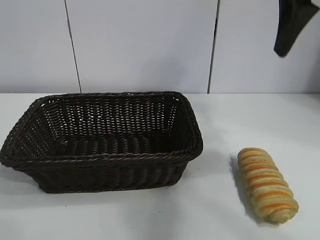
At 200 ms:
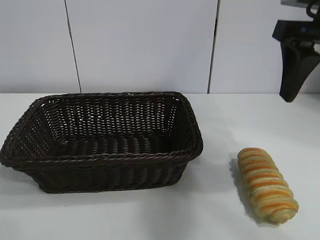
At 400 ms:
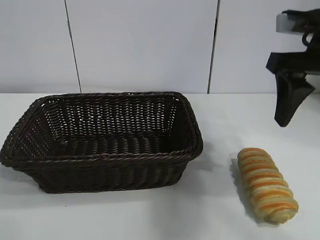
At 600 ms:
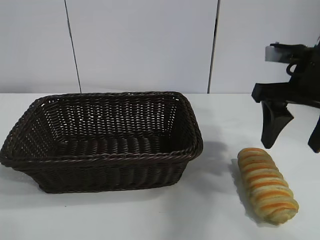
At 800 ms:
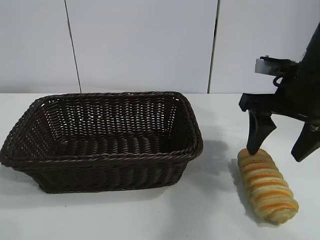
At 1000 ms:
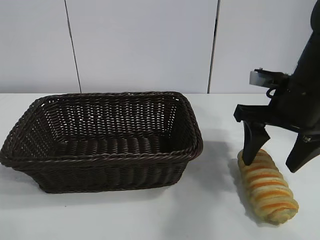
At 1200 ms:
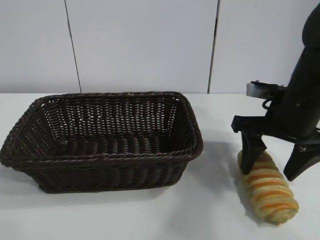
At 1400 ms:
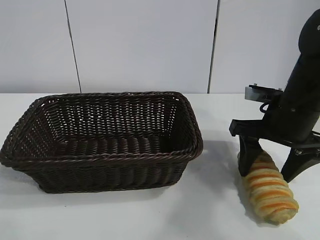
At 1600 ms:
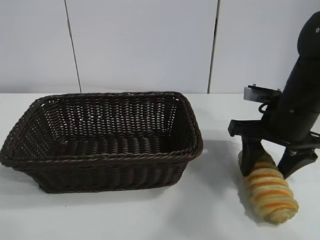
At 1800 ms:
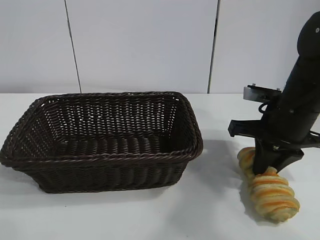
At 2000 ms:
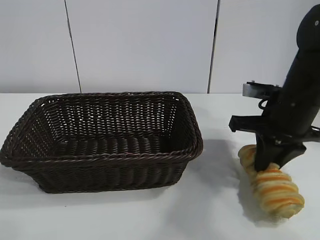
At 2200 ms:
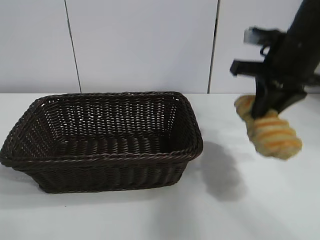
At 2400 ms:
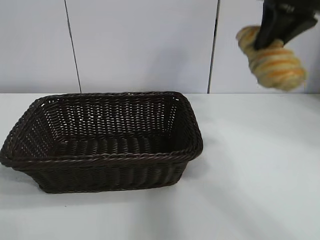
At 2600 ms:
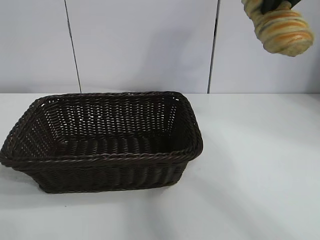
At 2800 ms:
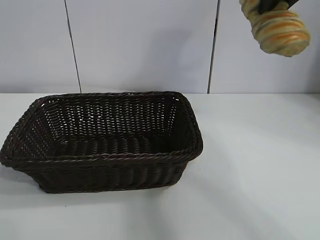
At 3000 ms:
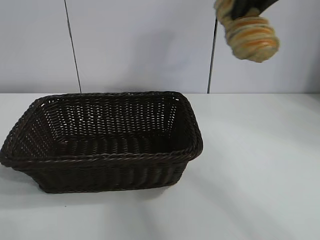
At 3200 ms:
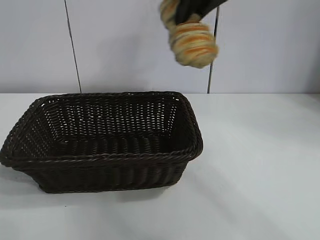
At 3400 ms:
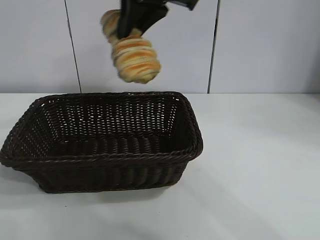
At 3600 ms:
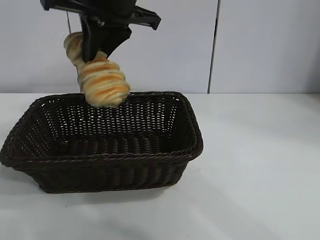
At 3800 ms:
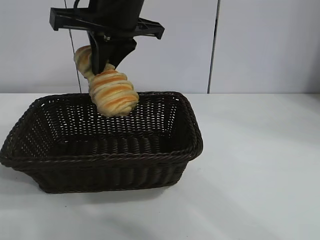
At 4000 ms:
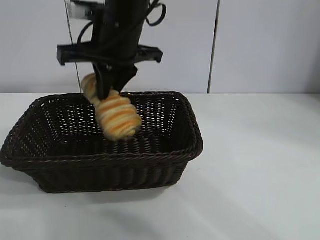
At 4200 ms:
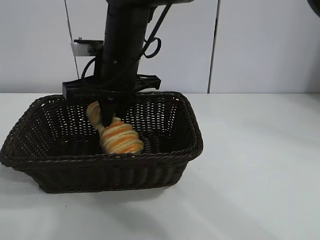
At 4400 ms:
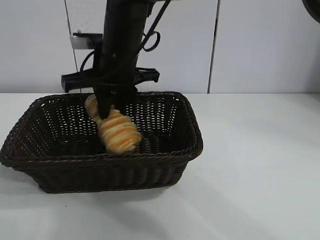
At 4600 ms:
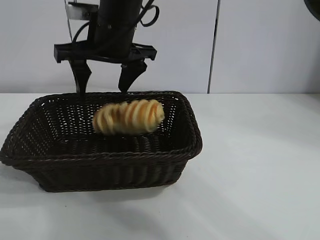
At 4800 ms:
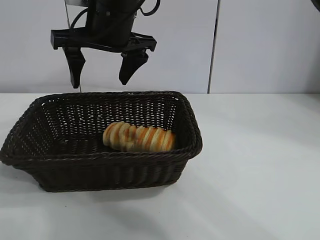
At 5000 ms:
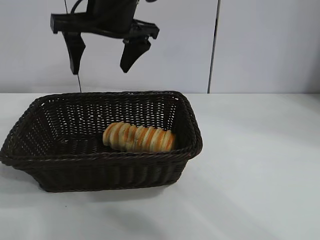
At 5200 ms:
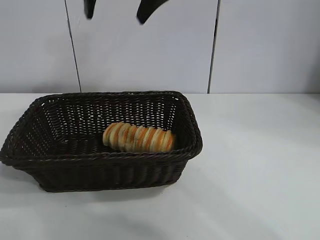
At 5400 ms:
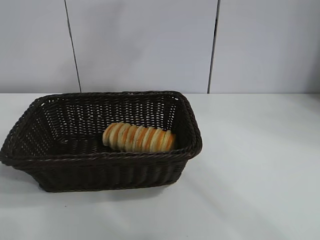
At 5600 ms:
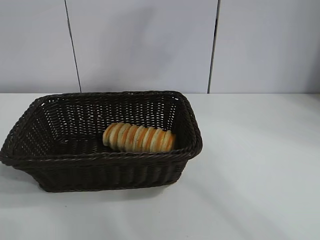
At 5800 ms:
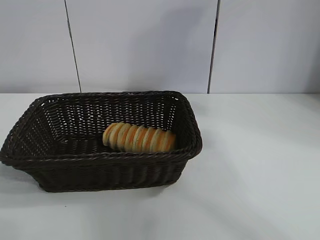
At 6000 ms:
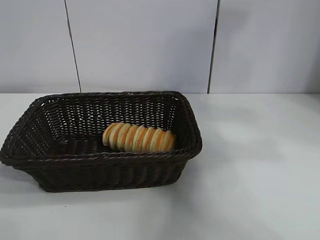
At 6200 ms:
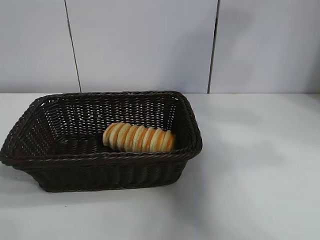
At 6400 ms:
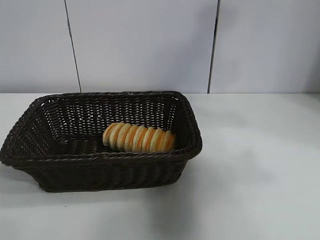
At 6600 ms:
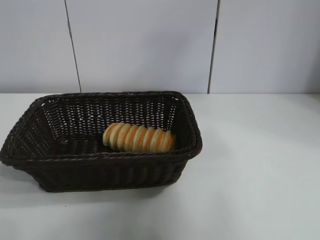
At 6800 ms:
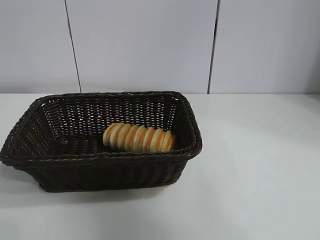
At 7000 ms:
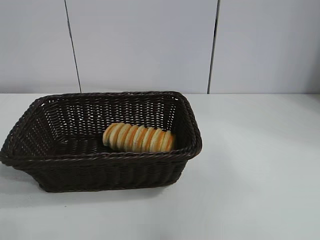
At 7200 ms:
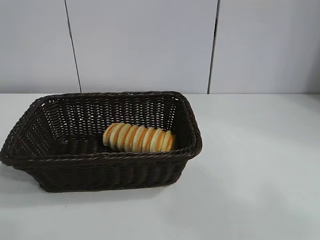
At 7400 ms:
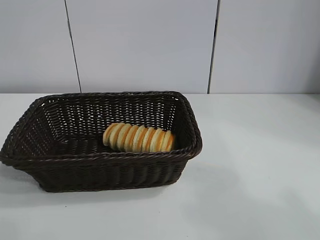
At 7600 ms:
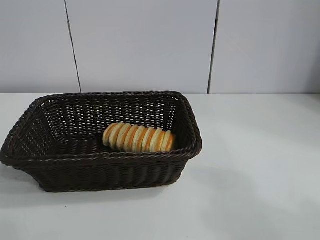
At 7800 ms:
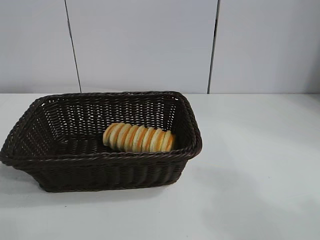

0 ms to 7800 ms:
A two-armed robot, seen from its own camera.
Task of the whole recording: pick up the long bread and put it into the basket.
Step, 2000 ms to 4400 ms: Place the long bread in the basket with right gripper.
